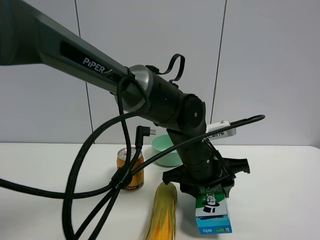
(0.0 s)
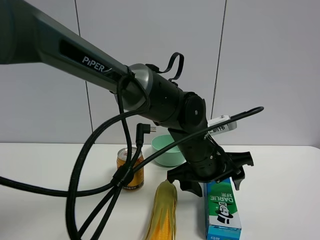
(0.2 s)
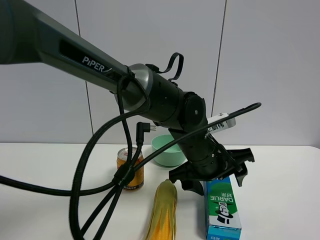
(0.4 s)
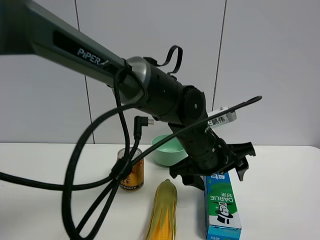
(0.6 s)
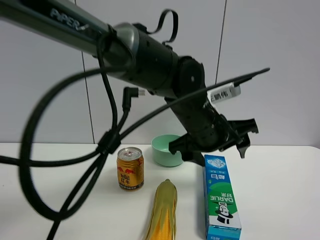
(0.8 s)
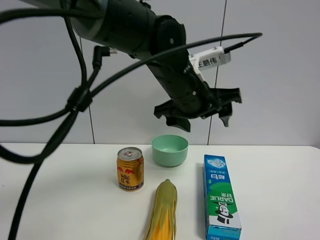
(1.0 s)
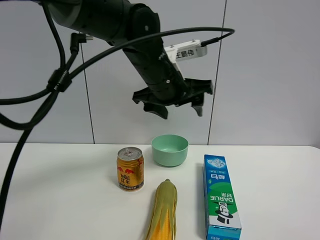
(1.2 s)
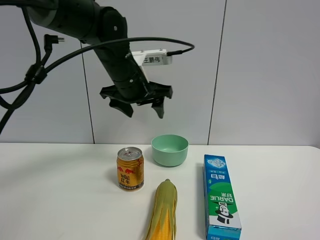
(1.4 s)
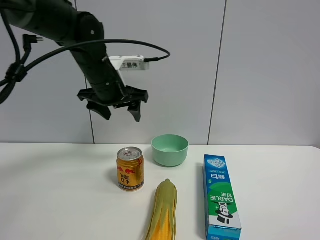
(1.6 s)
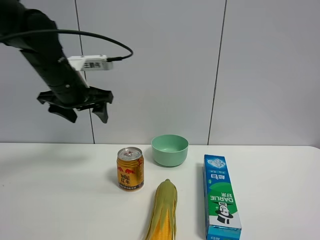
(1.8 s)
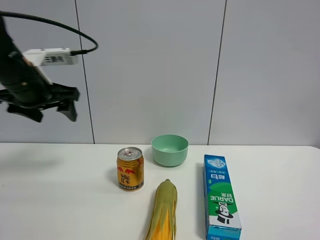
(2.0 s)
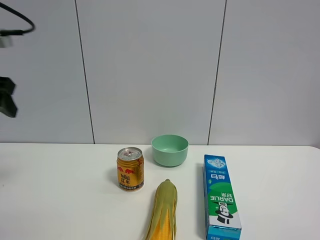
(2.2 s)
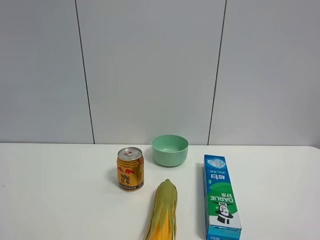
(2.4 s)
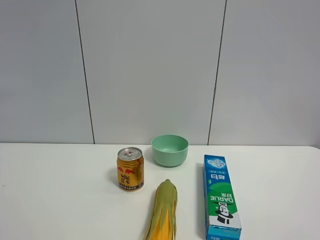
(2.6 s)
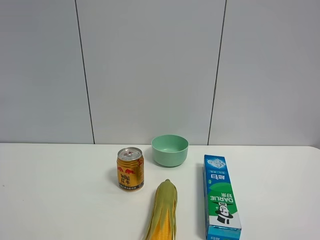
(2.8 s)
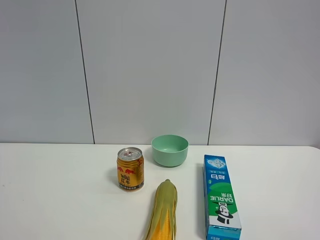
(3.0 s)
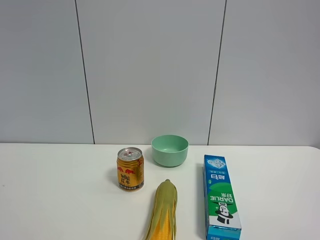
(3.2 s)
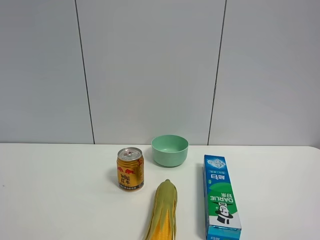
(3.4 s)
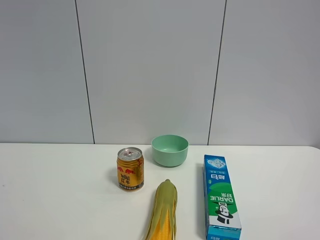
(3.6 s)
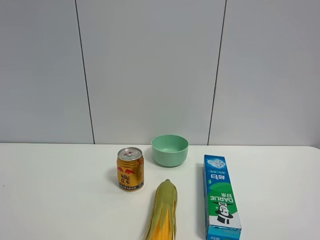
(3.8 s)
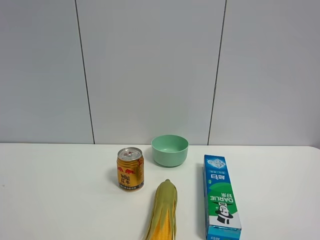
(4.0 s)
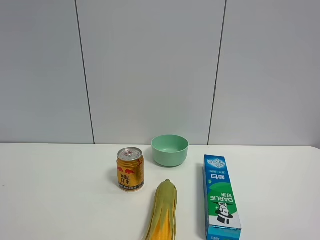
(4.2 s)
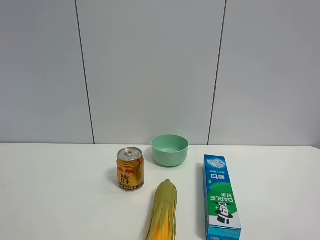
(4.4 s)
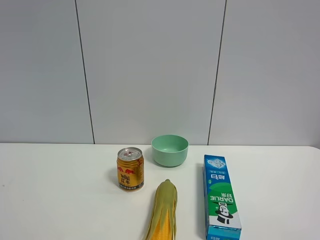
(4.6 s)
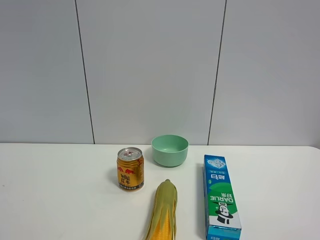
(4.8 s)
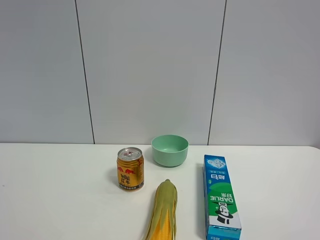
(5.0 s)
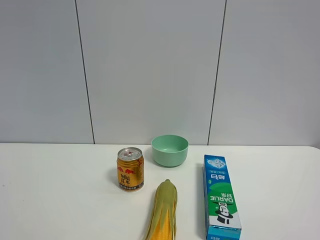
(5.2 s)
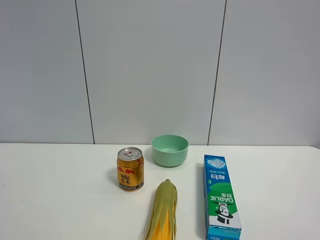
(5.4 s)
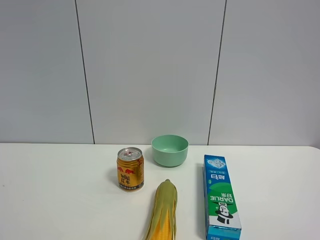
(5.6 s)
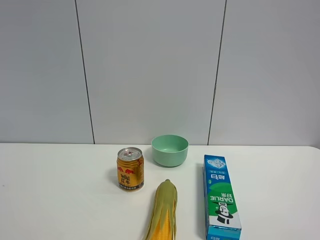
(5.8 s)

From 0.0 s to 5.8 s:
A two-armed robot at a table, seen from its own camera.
Task of the whole recording: the gripper move the object.
From 0.0 s to 1.4 s: The left gripper moves to the left, upward and forward, some 20 cm, and opens.
From 1.4 s to 2.8 s: The left gripper shifts some 40 cm backward and to the left.
From 4.4 s to 5.8 s: Both grippers stay put.

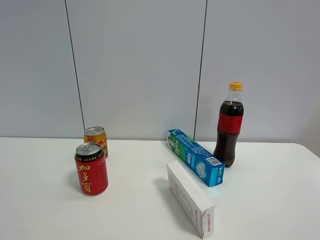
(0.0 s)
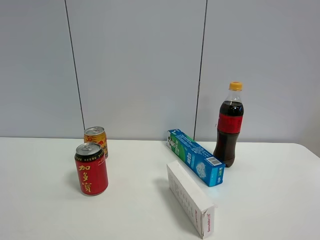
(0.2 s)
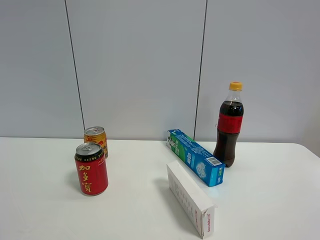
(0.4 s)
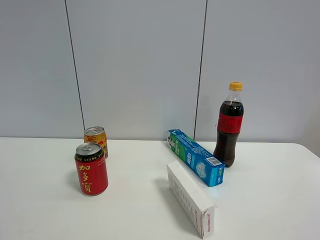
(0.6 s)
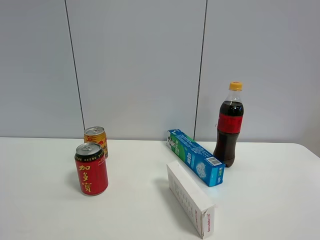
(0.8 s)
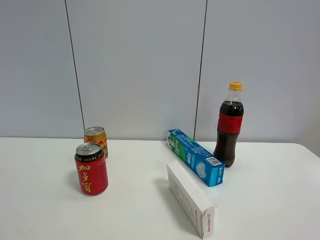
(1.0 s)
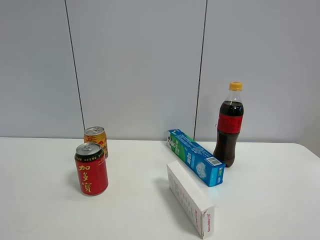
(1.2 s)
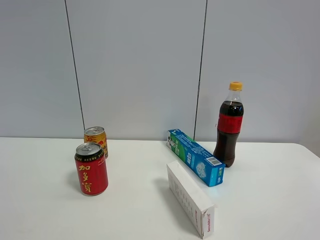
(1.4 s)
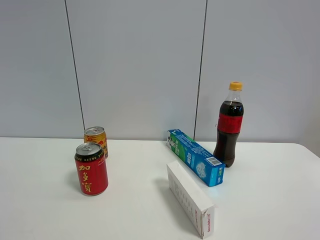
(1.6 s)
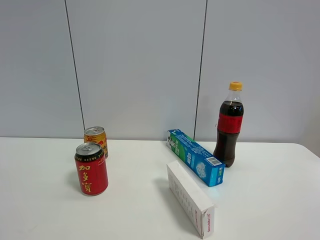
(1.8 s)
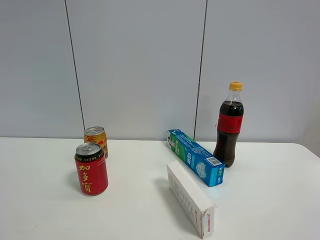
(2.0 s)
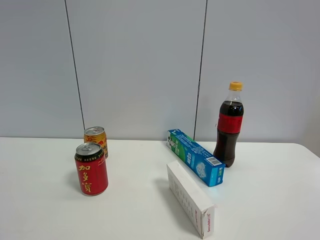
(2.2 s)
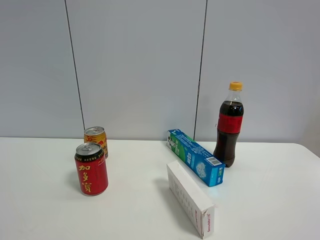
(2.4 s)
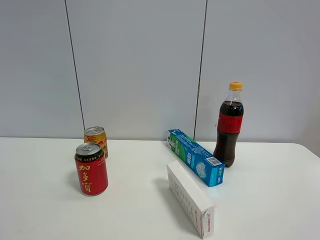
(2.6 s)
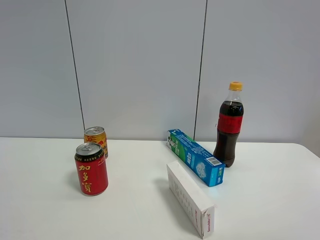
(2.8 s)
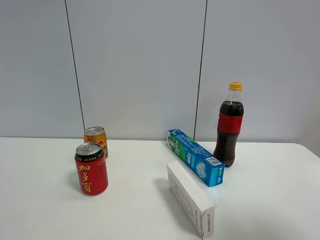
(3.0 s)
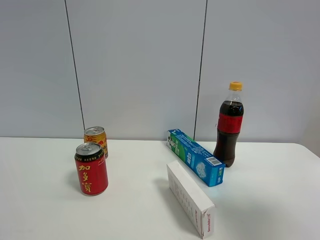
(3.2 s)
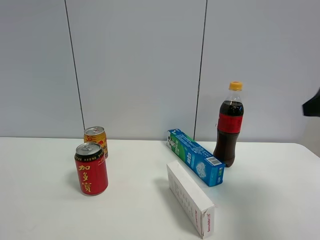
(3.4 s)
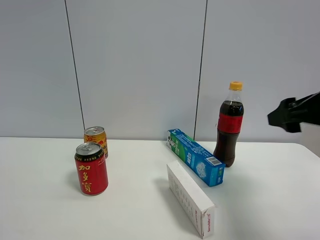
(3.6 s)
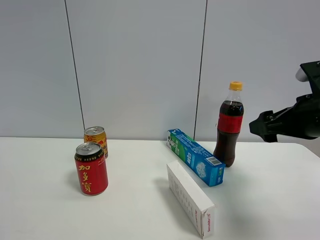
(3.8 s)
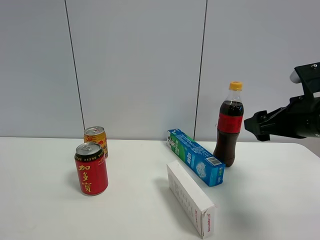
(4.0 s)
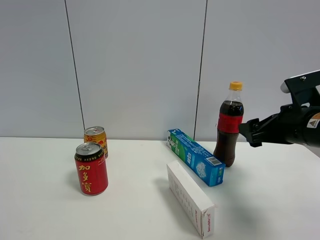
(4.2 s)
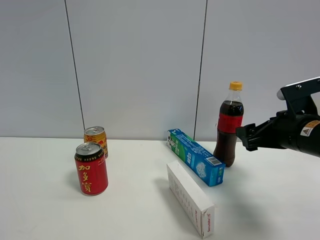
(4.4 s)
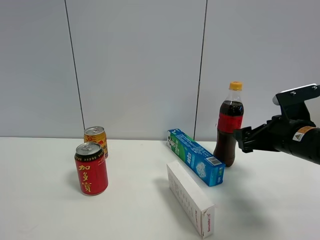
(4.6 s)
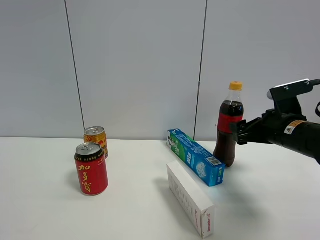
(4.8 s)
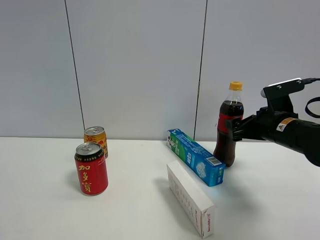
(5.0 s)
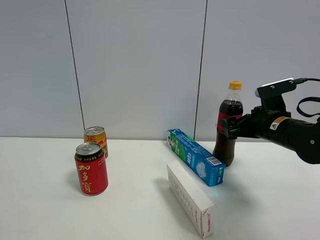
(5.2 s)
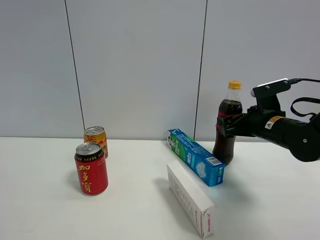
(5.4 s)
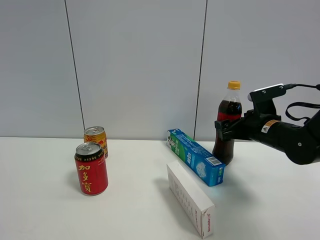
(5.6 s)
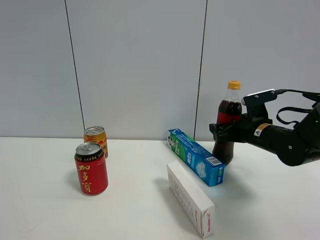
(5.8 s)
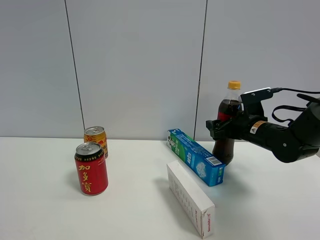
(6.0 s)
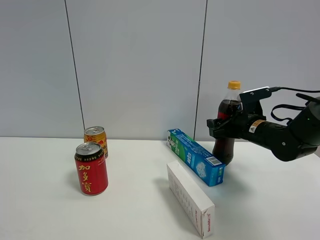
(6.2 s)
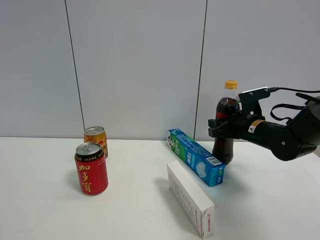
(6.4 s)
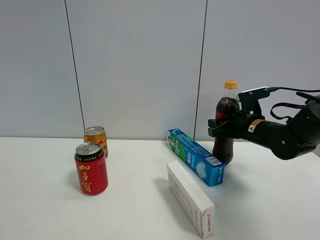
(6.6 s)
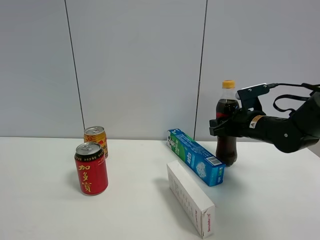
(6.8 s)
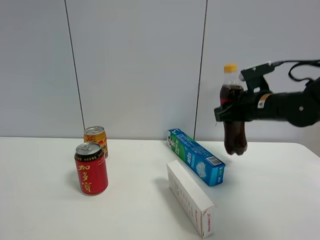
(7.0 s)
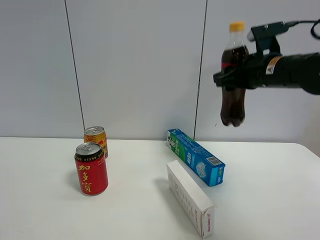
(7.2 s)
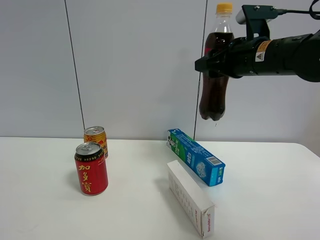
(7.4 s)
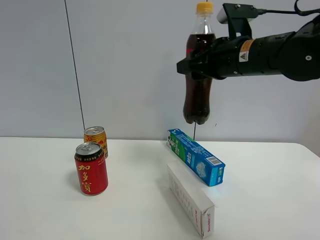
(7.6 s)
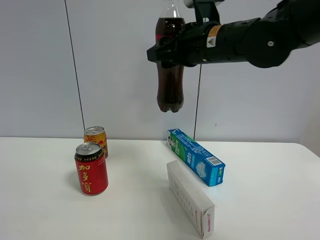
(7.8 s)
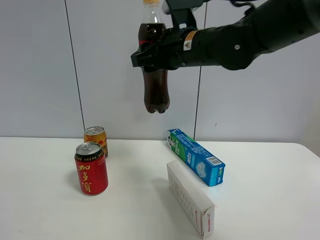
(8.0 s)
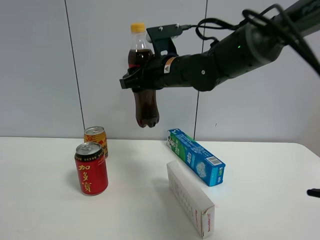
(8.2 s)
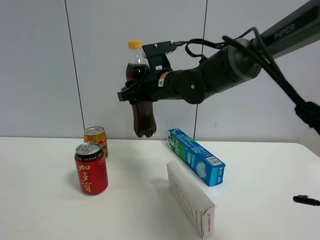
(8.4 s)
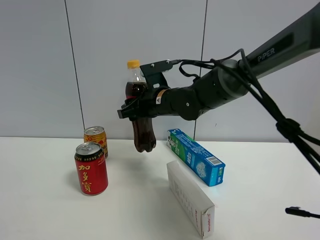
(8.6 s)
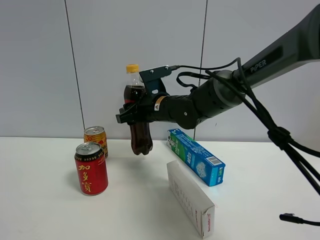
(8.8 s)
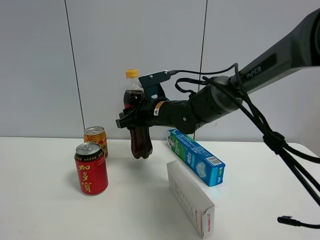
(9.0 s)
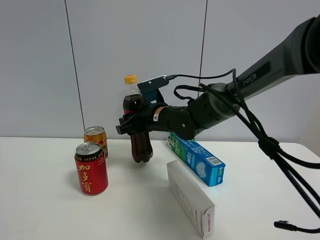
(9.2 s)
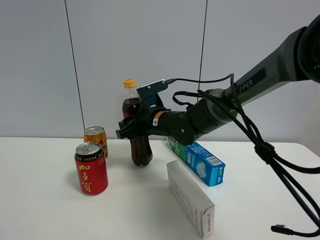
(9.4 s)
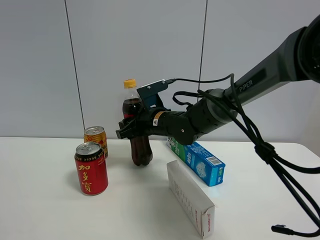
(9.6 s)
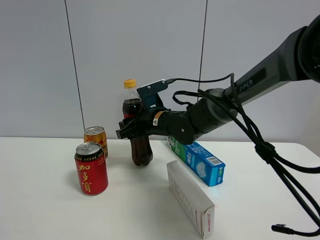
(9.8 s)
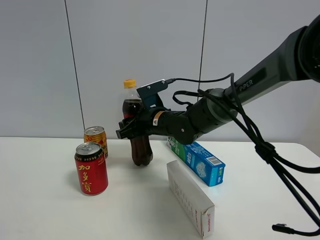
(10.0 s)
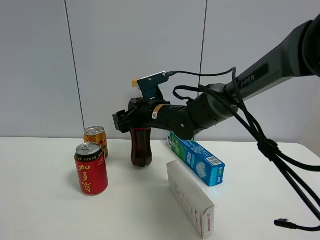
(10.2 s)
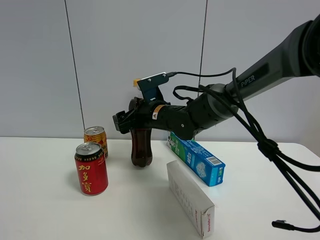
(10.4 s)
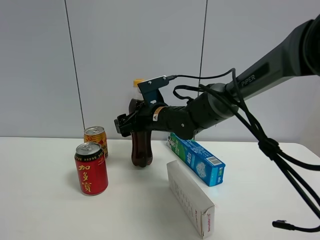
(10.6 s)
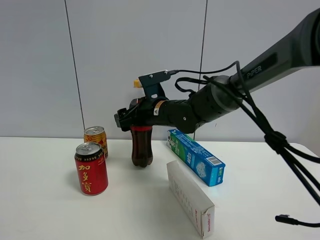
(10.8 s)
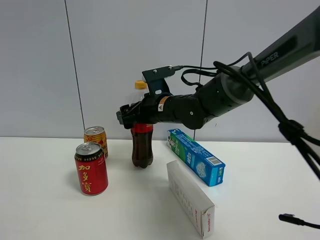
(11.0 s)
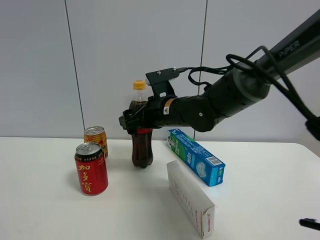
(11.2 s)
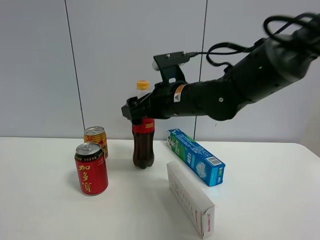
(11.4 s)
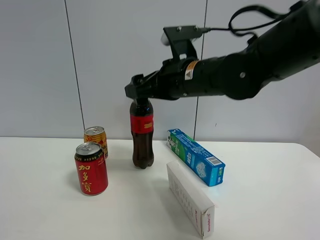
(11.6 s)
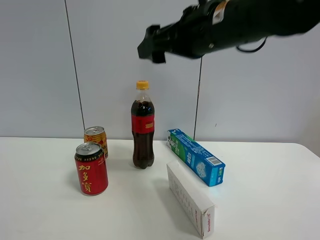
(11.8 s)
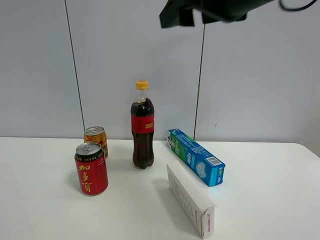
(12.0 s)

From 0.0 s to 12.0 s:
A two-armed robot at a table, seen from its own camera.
Task of the whole recording: the gripper move the object.
Step, from 0.0 s to 6.4 s: Grasp the coke with the right gripper.
Step, from 6.6 s to 10.8 s: Place the coke on the table with the right gripper.
From 0.0 s to 1.6 s: Neither gripper changes place.
From 1.6 s to 3.0 s: The right gripper travels forward by approximately 10 cm.
From 3.0 s to 4.4 s: The right gripper heads forward and downward, covering about 25 cm.
From 4.4 s to 6.0 s: The right gripper goes some 10 cm forward.
From 6.0 s to 7.6 s: The right gripper goes roughly 20 cm upward, to the left and backward, and closes.
From 7.6 s to 9.0 s: The right gripper shifts roughly 20 cm downward, to the left and forward.
From 9.0 s to 10.4 s: The right gripper opens its fingers.
From 10.4 s to 12.0 s: The right gripper moves upward, backward and to the right, about 30 cm.

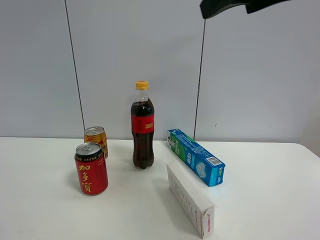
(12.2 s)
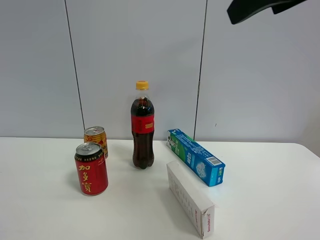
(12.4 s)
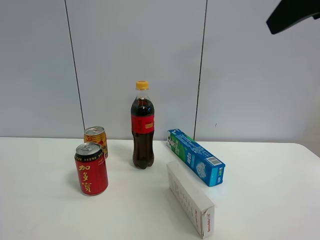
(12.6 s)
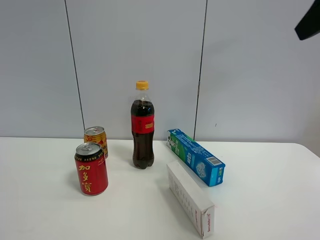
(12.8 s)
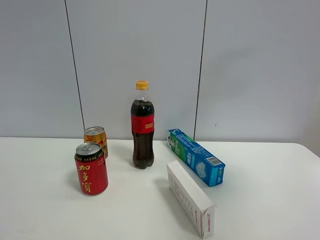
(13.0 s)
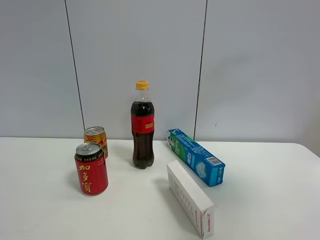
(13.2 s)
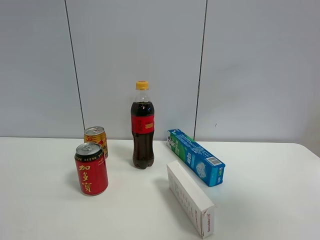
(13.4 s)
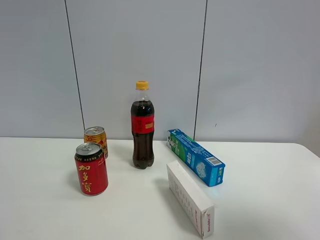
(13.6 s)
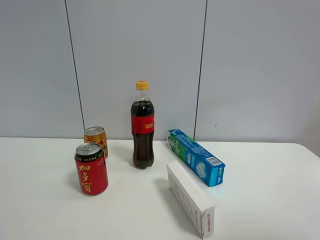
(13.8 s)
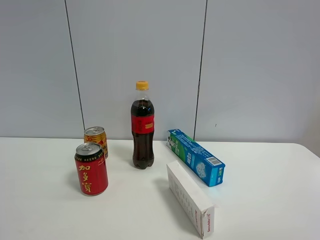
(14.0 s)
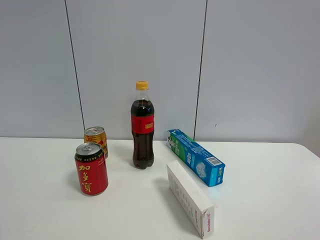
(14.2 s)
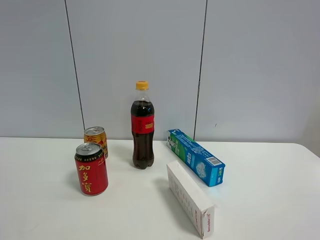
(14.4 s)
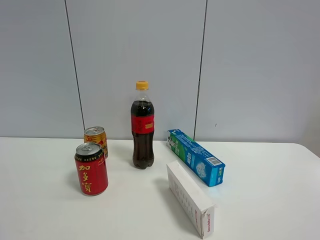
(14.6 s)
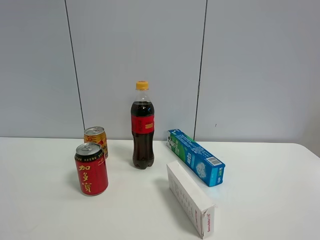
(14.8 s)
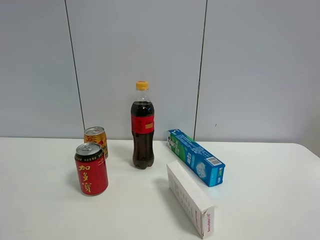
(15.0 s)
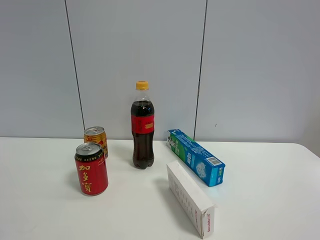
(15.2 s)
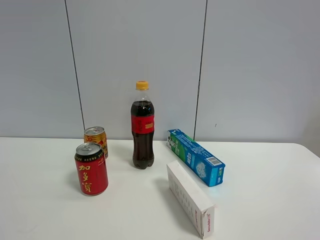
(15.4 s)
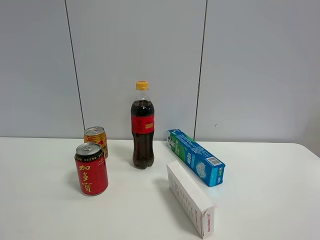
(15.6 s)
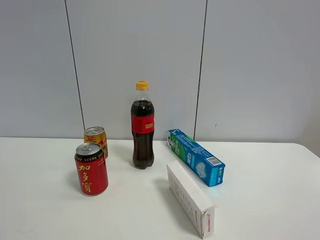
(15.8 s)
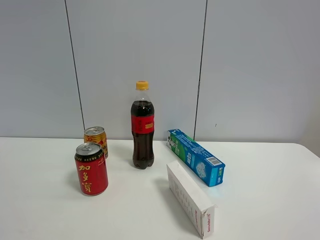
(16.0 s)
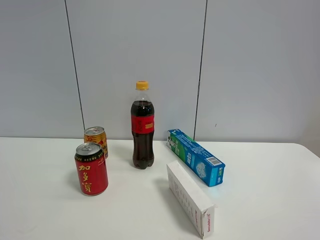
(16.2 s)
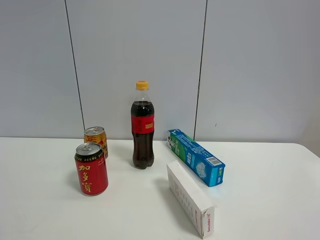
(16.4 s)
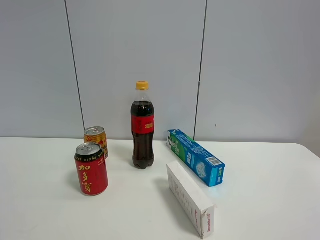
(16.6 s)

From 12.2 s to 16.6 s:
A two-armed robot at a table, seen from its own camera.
Task of the whole recording: the gripper move the object.
From 12.2 s to 13.6 s: The right gripper heads to the right and backward, covering approximately 20 cm.
From 13.6 s to 15.2 s: The right gripper is displaced downward and backward by about 15 cm.
From 15.2 s to 16.6 s: The two grippers keep their place.
